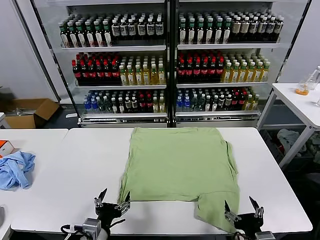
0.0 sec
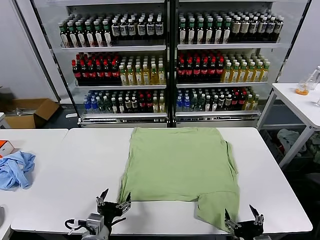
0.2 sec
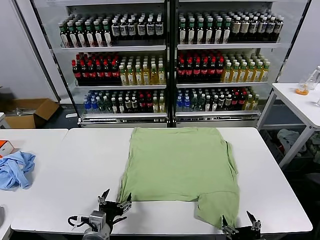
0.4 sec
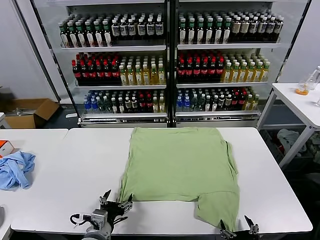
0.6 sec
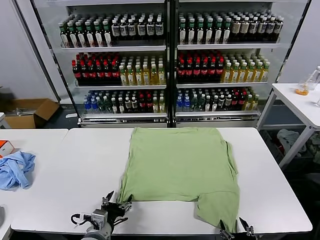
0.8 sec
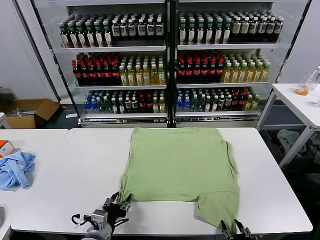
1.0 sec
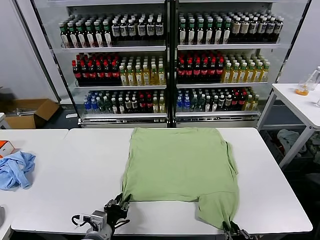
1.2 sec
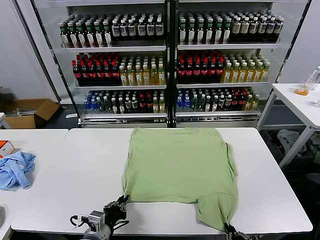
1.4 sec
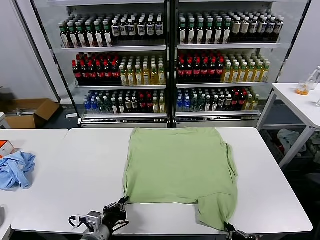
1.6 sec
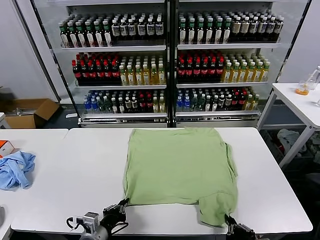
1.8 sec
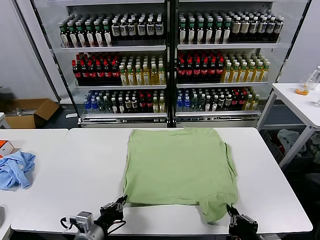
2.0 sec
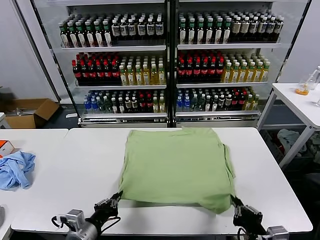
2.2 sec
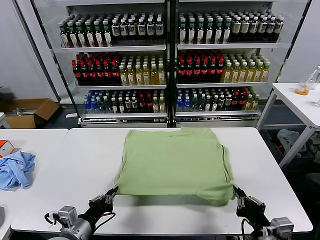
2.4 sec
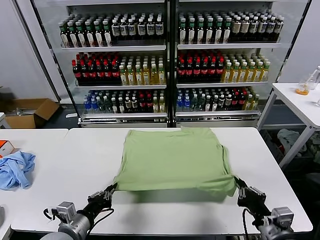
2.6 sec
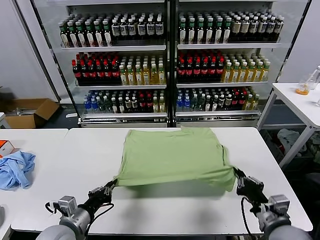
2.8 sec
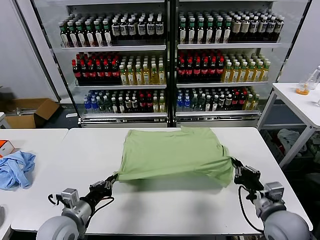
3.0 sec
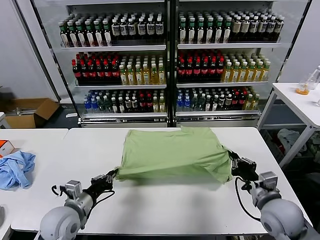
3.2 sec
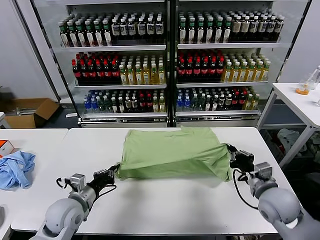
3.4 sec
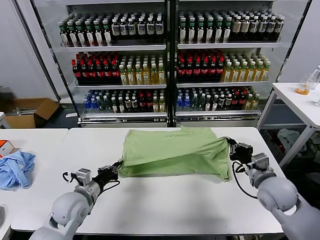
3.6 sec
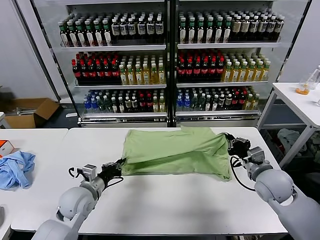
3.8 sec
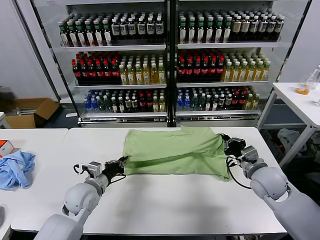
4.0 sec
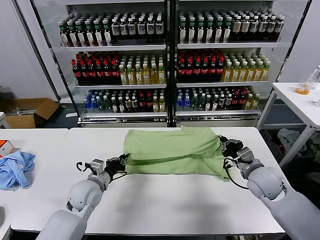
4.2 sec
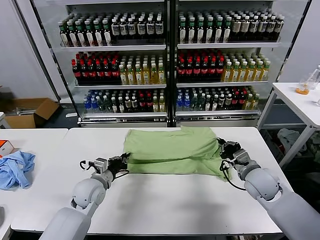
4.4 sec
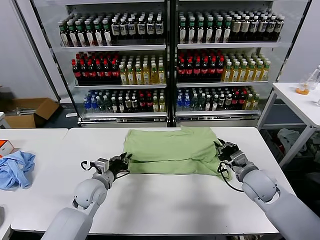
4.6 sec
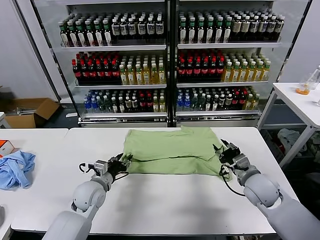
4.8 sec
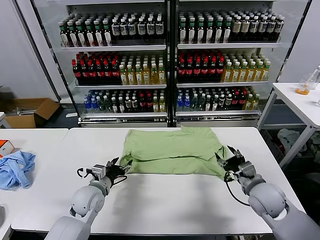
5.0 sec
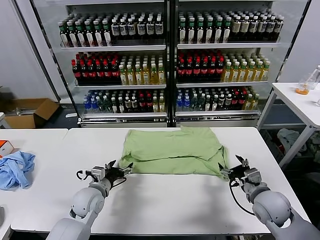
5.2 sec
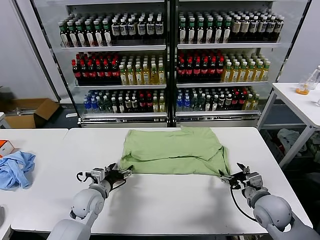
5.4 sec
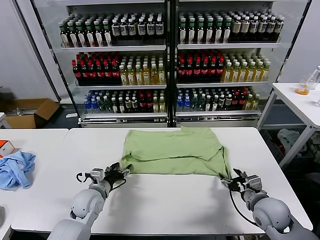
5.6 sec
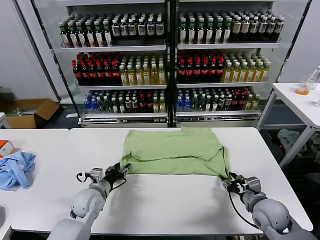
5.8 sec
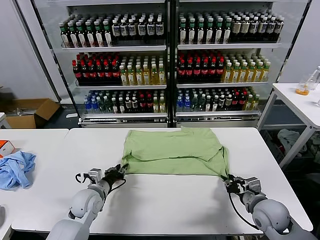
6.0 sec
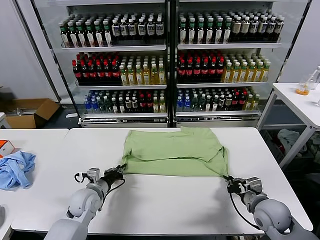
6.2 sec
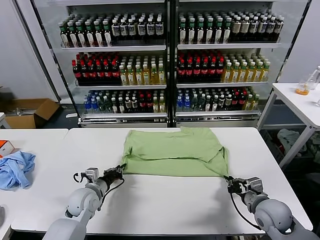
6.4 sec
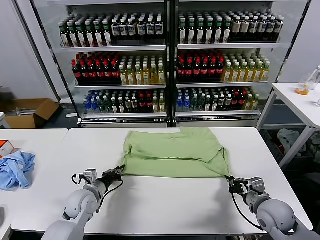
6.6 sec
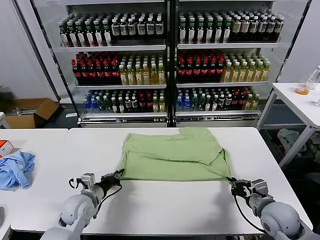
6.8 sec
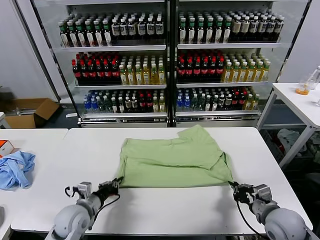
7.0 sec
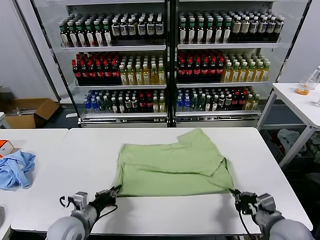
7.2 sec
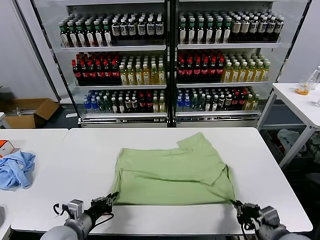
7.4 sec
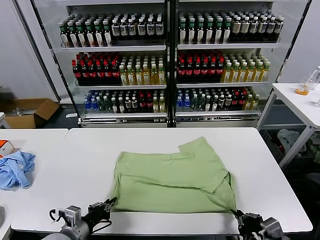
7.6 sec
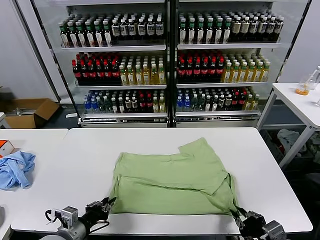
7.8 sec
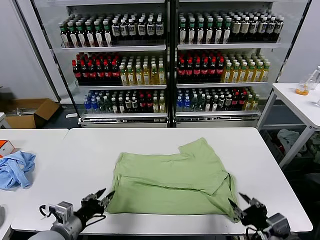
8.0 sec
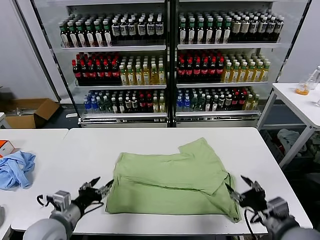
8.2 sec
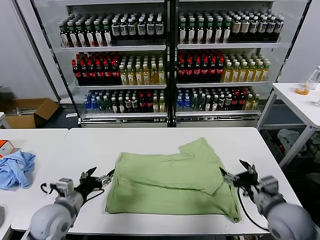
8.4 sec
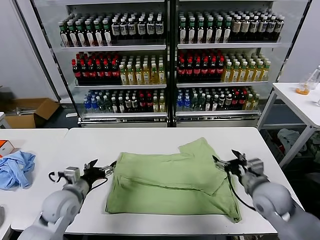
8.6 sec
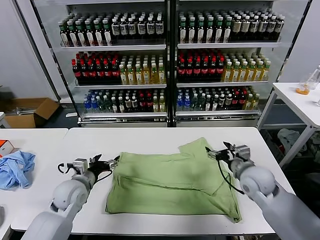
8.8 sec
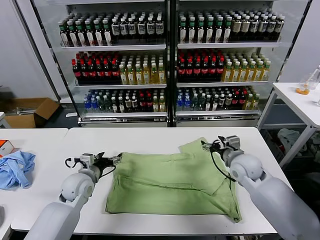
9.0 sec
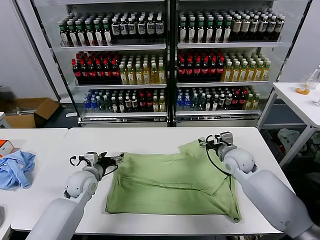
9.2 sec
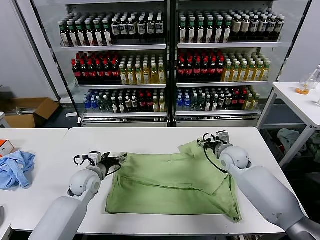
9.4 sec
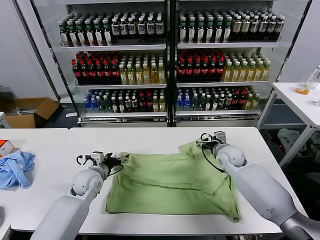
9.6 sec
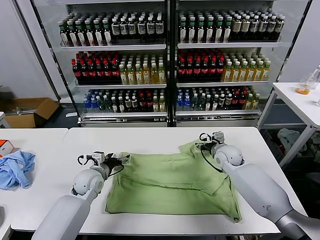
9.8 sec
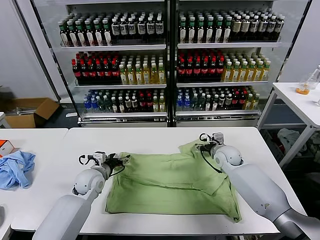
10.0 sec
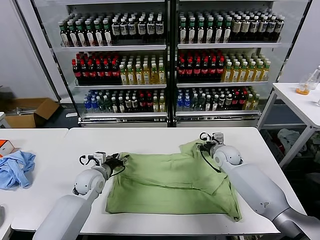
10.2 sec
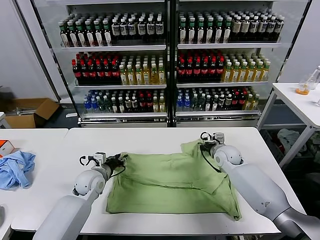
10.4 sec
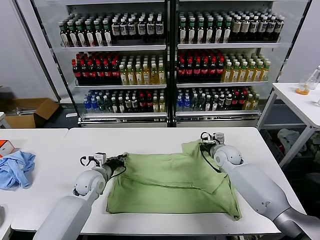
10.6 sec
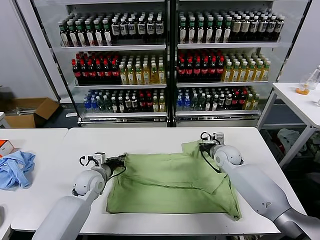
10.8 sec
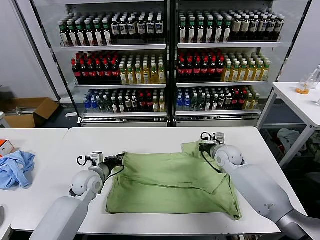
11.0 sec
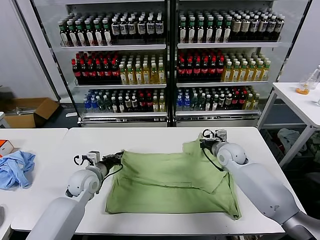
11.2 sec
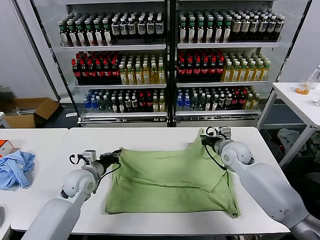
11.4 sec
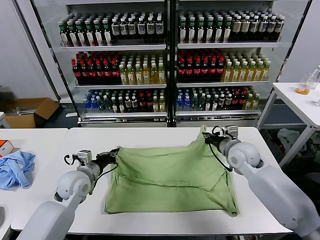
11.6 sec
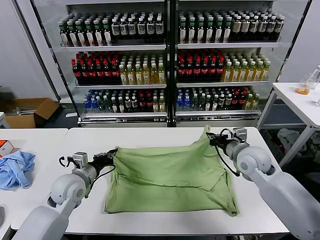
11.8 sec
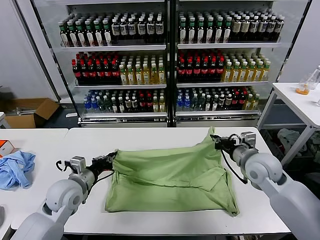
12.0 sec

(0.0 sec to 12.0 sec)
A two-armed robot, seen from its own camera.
Task of the whole recording: fold and organize the clothes.
Step, 0.0 sec - 1.8 sec: use both grippers simultaneously to clamp the lower edge of the clothing fabric.
Step, 2.0 sec - 4.8 sec: use both grippers to drag the lower edge of the fabric forward and fold it over the upper edge.
Step, 5.2 sec - 7.8 sec: Drag the clothes downward with both gripper.
Step, 8.0 sec - 10.6 sec: use both grippers simultaneously to clamp the upper edge of the clothing fabric.
1.6 sec - 3.0 sec: The right gripper goes approximately 15 cm forward and to the right, while the left gripper travels to the left and forward by about 10 cm.
3.0 sec - 4.4 sec: The grippers both shift forward by about 10 cm.
4.4 sec - 6.0 sec: The right gripper shifts about 10 cm backward, and opens, then closes again, while the left gripper opens, then closes again.
6.0 sec - 7.6 sec: Both grippers move backward, about 15 cm.
7.6 sec - 9.0 sec: The left gripper moves forward, approximately 20 cm, and opens. The right gripper goes approximately 30 cm forward, and opens.
9.0 sec - 10.4 sec: The left gripper closes its fingers; the right gripper shifts some 10 cm forward and downward, and closes its fingers.
10.4 sec - 12.0 sec: The left gripper heads backward and upward, covering some 10 cm, and closes its fingers, while the right gripper shifts about 20 cm backward and upward.

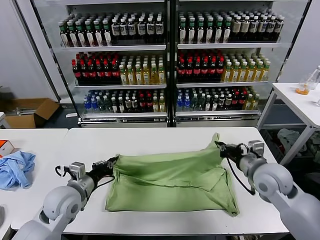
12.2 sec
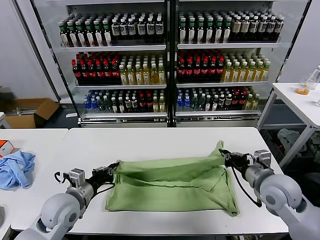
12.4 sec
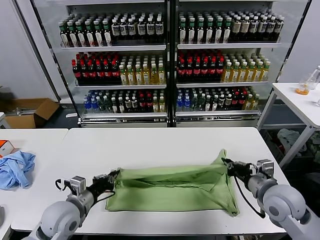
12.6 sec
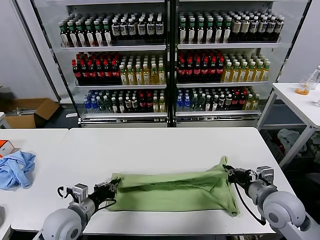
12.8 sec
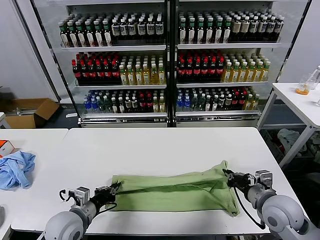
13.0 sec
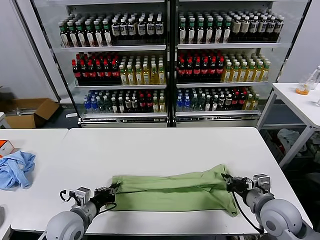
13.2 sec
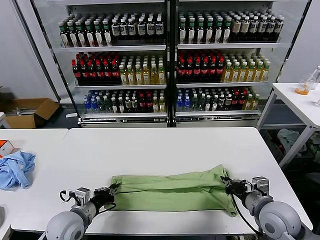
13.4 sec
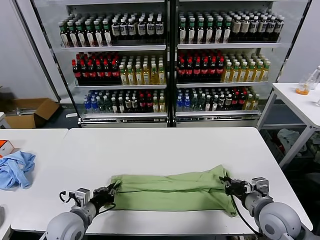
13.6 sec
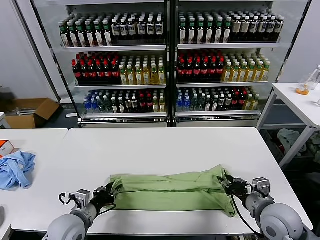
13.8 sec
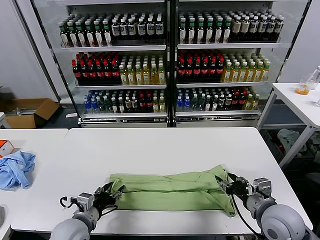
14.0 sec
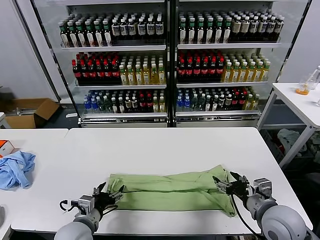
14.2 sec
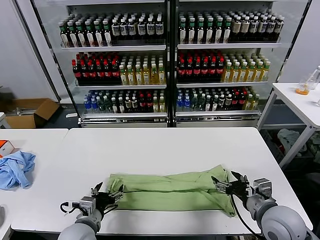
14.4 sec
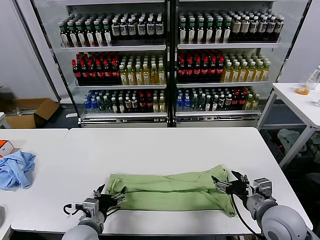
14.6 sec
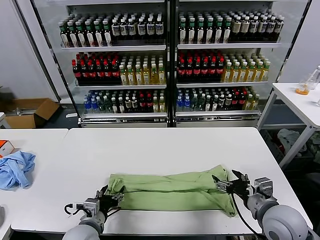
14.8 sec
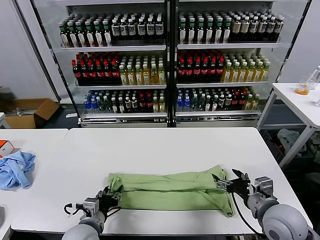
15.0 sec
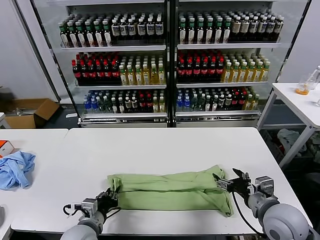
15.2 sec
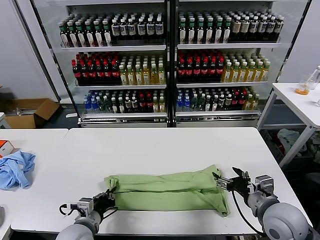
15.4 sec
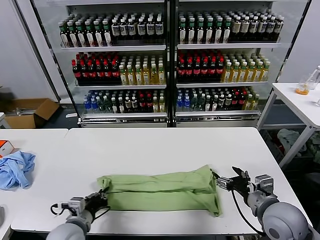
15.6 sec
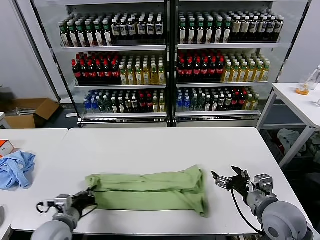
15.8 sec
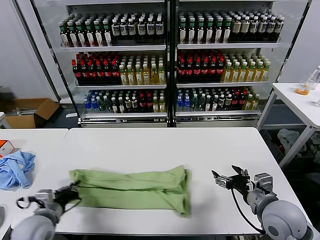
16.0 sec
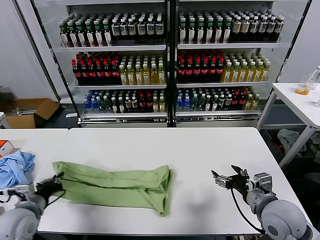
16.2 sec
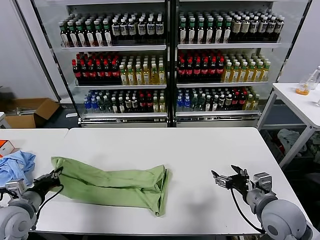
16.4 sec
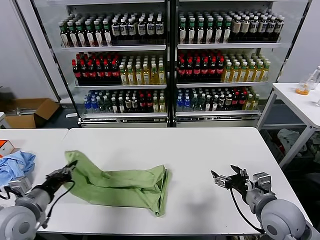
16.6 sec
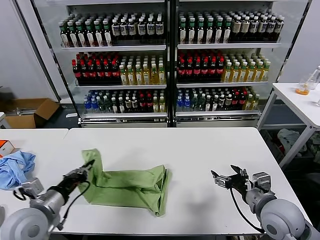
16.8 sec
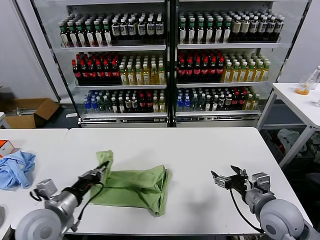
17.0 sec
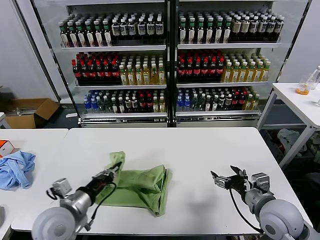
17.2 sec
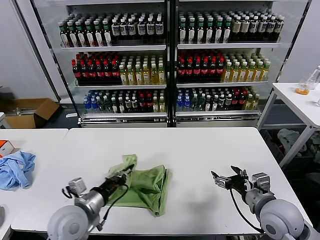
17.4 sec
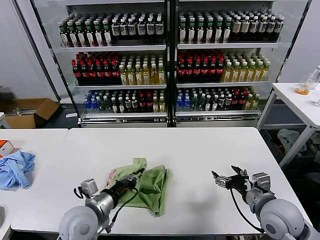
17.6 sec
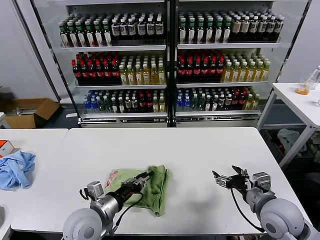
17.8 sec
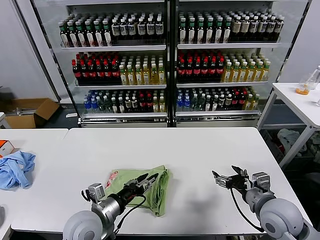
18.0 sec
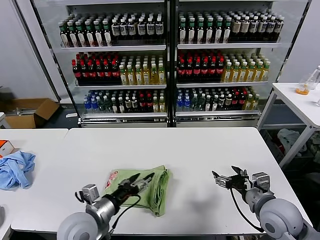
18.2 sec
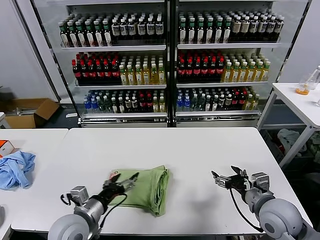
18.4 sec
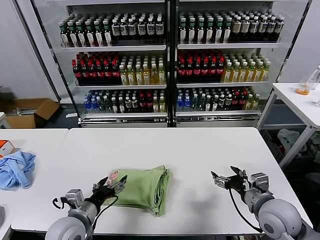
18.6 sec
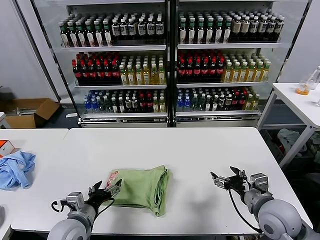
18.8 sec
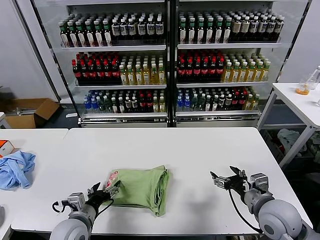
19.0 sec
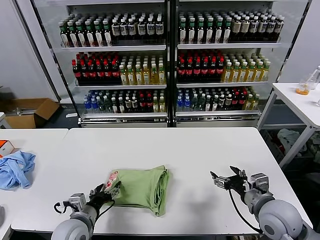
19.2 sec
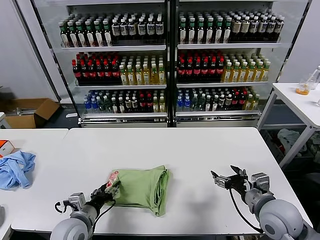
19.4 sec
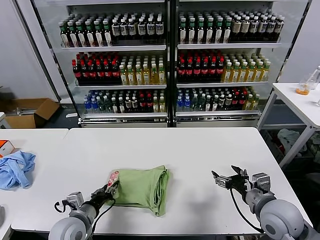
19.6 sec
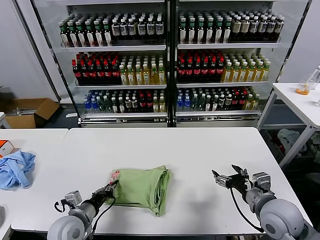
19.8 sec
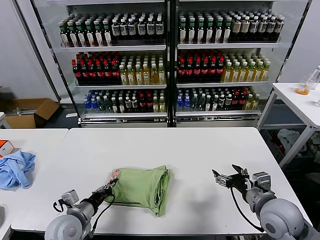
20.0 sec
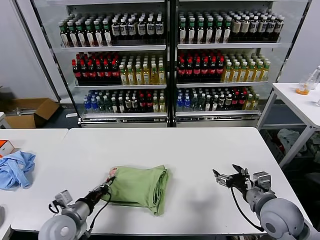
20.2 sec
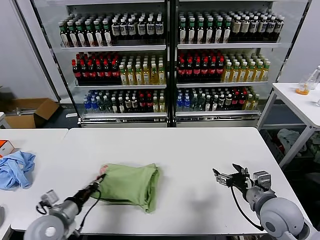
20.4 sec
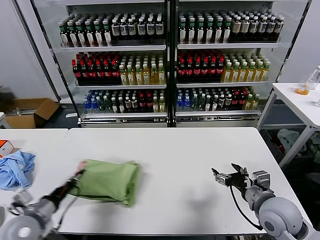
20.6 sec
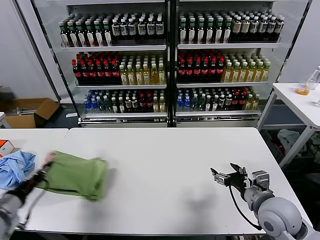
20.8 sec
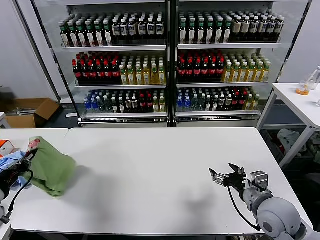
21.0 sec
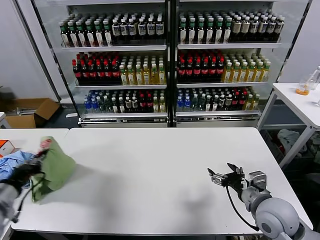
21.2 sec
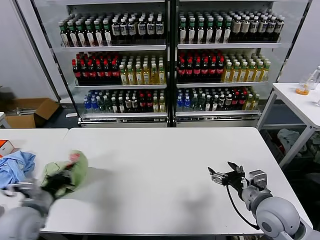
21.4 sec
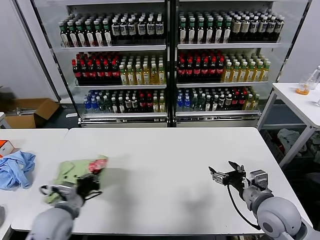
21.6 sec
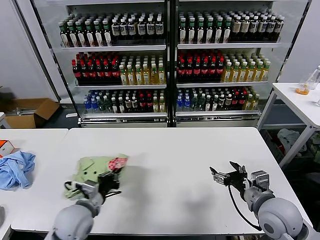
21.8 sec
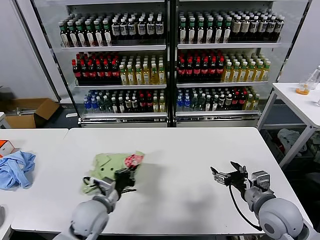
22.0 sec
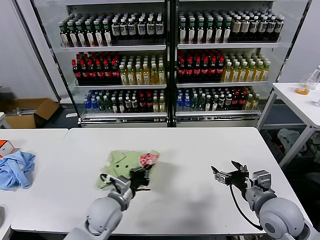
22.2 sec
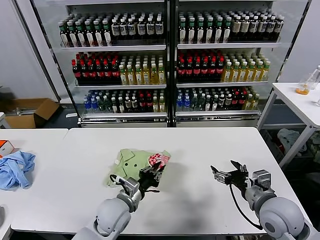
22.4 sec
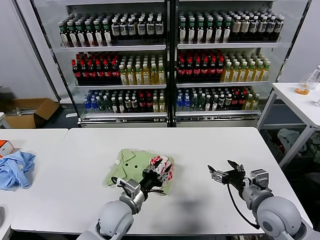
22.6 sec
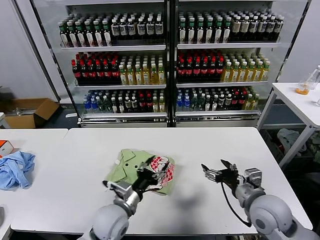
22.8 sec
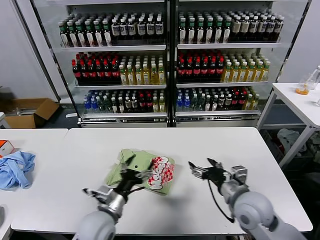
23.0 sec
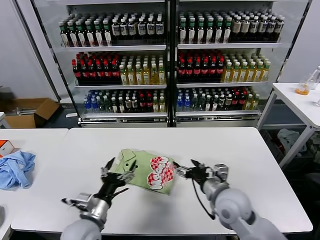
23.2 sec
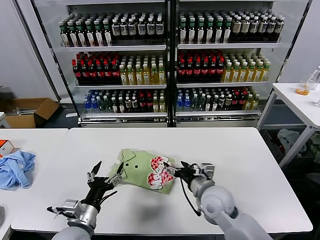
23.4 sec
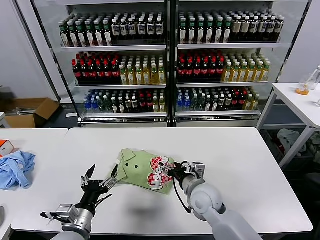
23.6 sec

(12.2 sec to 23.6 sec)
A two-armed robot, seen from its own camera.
Task of the whole recording: fold and organize the clothes.
Step, 12.2 sec - 14.0 sec: use both grippers to drag the upper edge of the fabric backward and fold it over the lower edge.
Step, 14.2 sec - 15.2 sec: use the left gripper to clamp the left edge of the fabric.
Step, 15.4 sec - 18.0 sec: use the left gripper to drag the left edge of the fabric to the left and folds it over the right edge.
Step, 18.2 sec - 22.6 sec: Flip the folded clothes over with left gripper.
12.2 sec - 13.6 sec: The right gripper shifts roughly 10 cm backward and downward; the left gripper heads downward and backward, covering about 10 cm.
13.6 sec - 15.0 sec: The right gripper opens up, while the left gripper shifts by roughly 5 cm, and opens up.
15.0 sec - 16.4 sec: The left gripper heads to the left and upward, covering some 20 cm, and closes.
16.4 sec - 17.8 sec: The left gripper is displaced to the right by roughly 20 cm.
17.8 sec - 19.4 sec: The left gripper goes some 10 cm downward and to the left, and opens its fingers.
19.4 sec - 20.8 sec: The left gripper moves to the left and upward, some 20 cm, and closes its fingers.
20.8 sec - 22.2 sec: The left gripper shifts about 25 cm to the right.
22.2 sec - 23.6 sec: The right gripper heads to the left, forward and downward, covering roughly 20 cm; the left gripper moves backward and to the left, some 10 cm, and opens its fingers.
